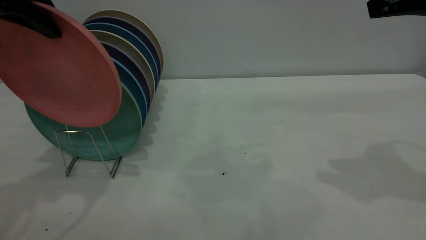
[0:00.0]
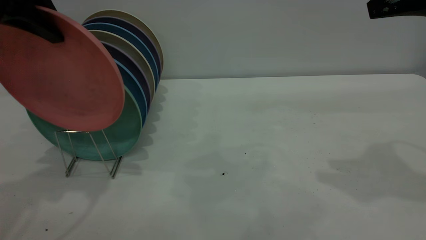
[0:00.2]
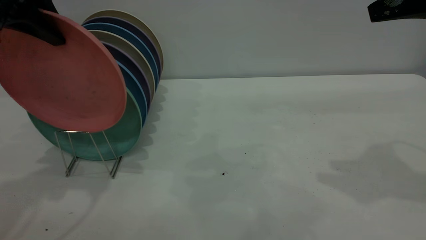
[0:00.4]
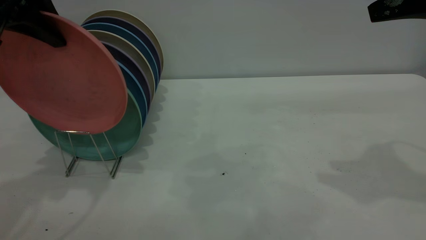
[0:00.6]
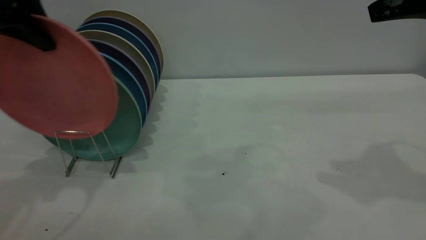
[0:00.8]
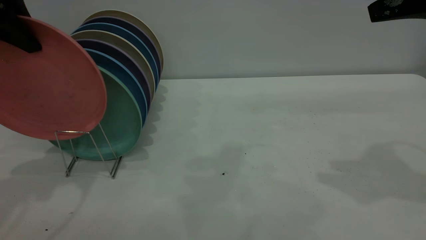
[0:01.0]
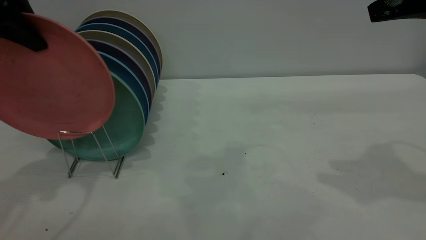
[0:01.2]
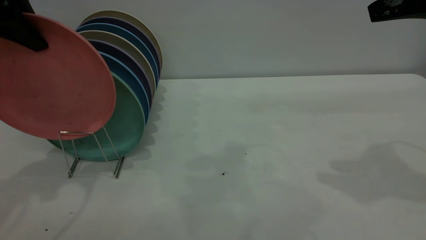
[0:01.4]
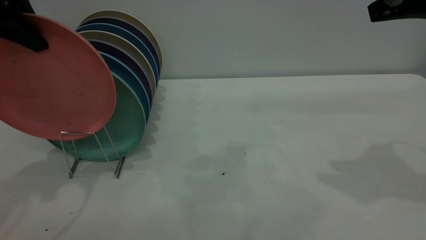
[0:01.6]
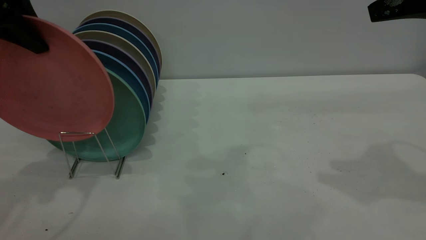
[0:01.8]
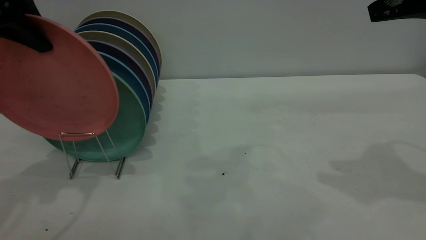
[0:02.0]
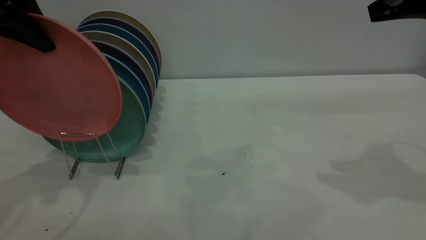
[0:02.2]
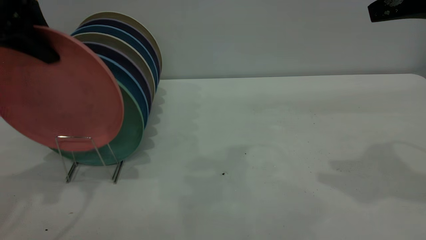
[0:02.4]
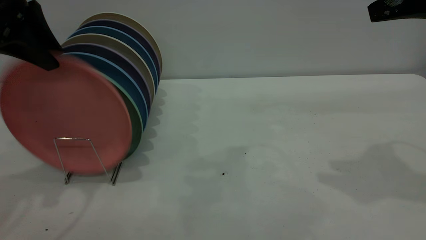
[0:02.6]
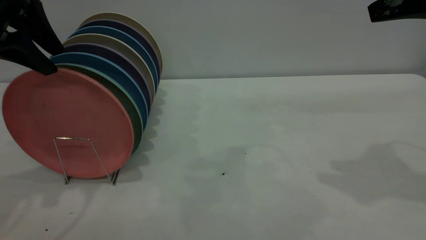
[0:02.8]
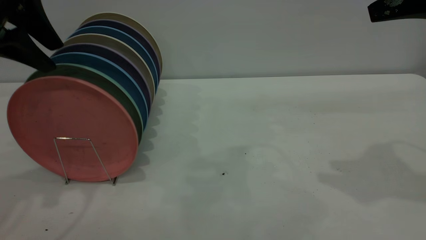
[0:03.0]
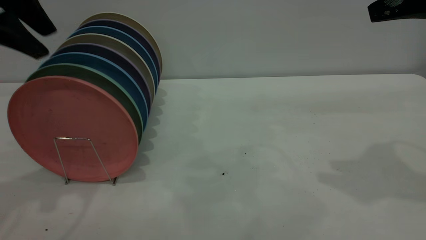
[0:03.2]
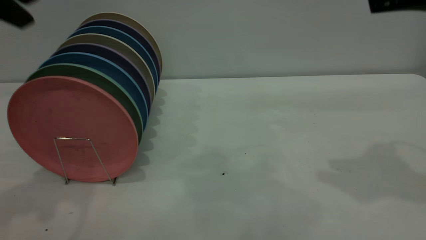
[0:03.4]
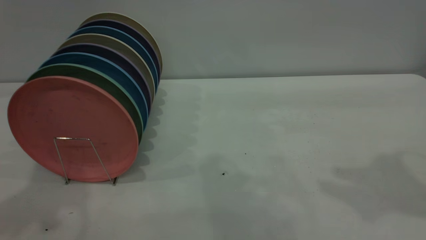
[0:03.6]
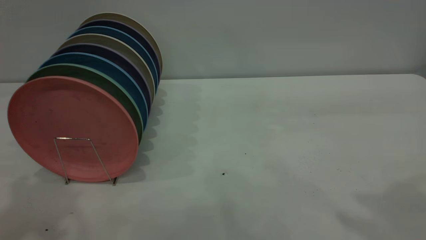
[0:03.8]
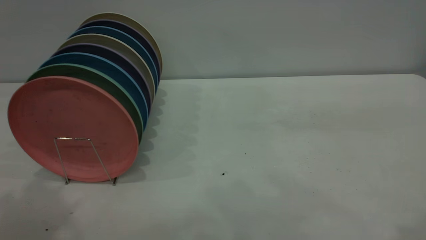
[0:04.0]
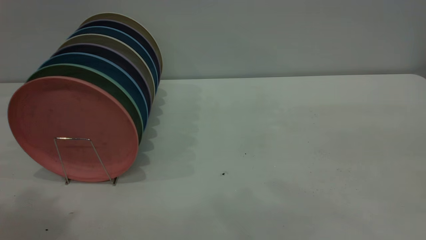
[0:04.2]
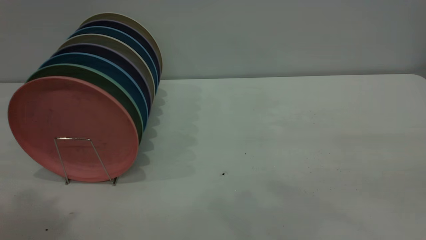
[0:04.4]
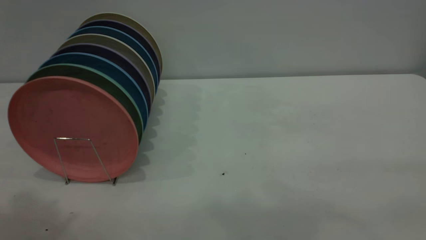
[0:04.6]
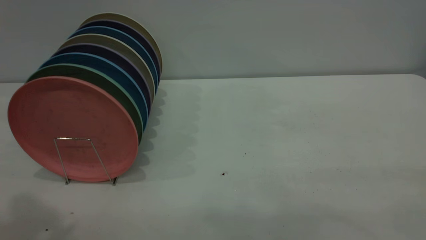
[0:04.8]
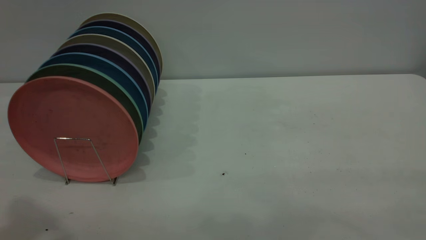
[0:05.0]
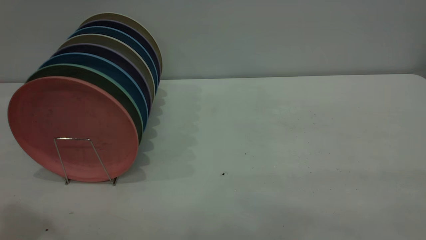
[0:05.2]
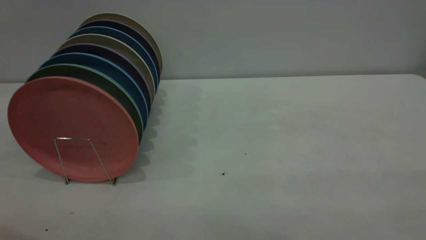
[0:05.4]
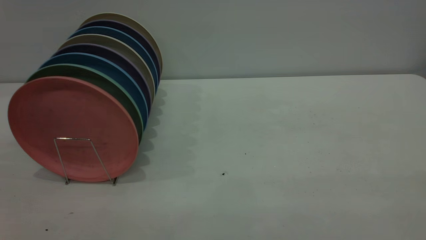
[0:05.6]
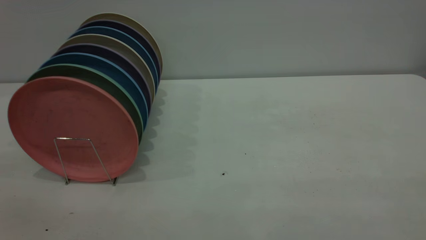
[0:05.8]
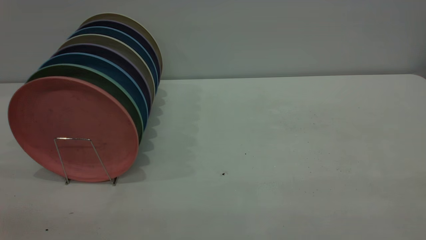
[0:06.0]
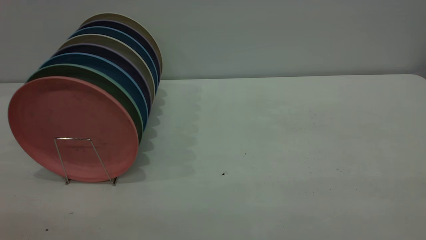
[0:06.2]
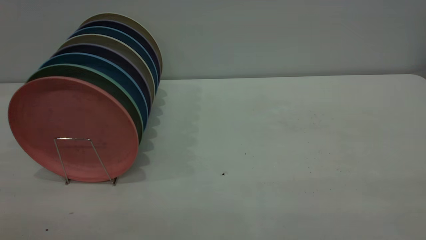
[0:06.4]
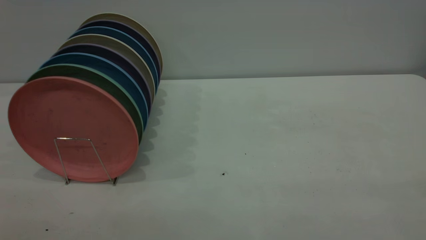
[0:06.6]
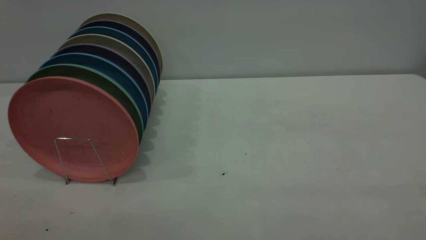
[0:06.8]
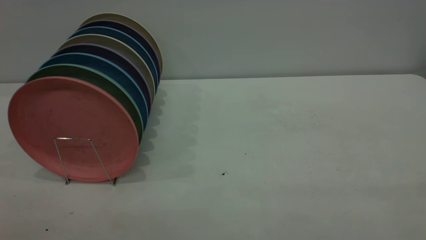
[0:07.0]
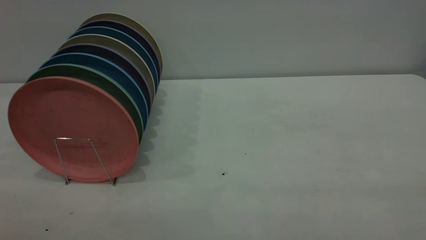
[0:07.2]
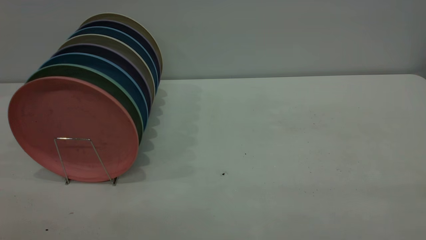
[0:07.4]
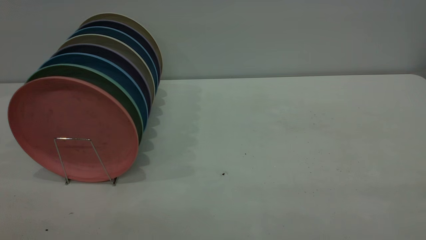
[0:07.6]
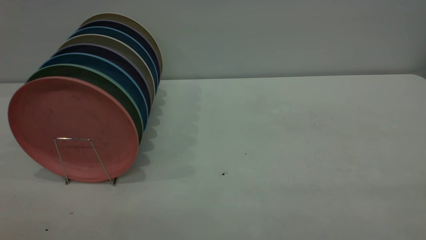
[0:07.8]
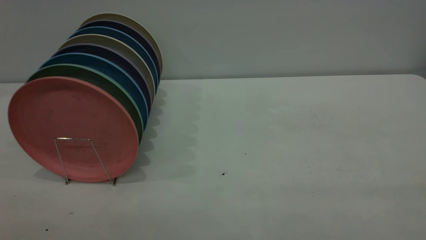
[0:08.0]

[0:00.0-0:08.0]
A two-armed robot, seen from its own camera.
Task of the whole recording: the right gripper grasp the pink plate, the right gripper pass the pink plate to the left gripper, and the left gripper place the pink plate on the plate rack.
Step, 0:00.0 to 0:03.4: Place the plate on the shelf.
0:00.0 to 0:01.6: The grippers move only a little.
0:01.6 to 0:03.2: The left gripper opens.
0:03.2 to 0:04.8: The right gripper shifts some 30 cm backward. Meanwhile the left gripper goes about 20 cm backward and upward.
